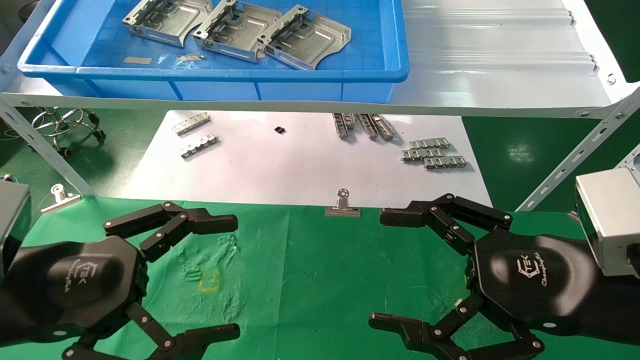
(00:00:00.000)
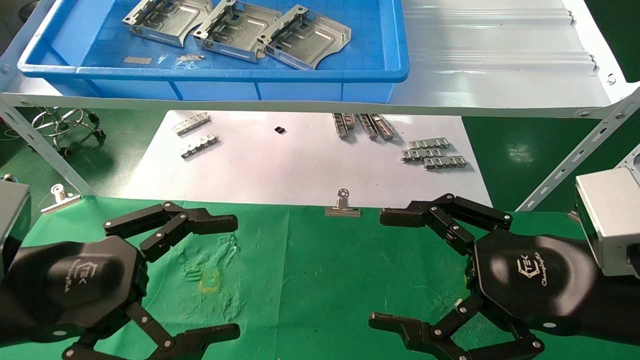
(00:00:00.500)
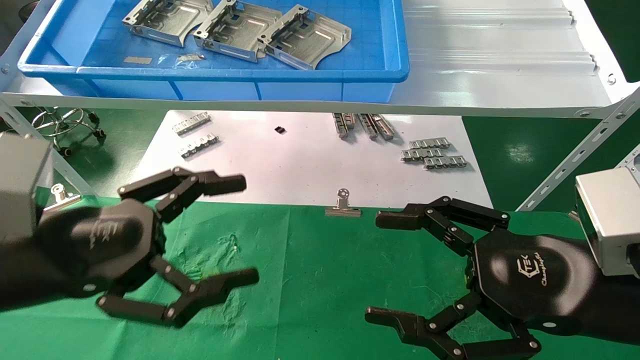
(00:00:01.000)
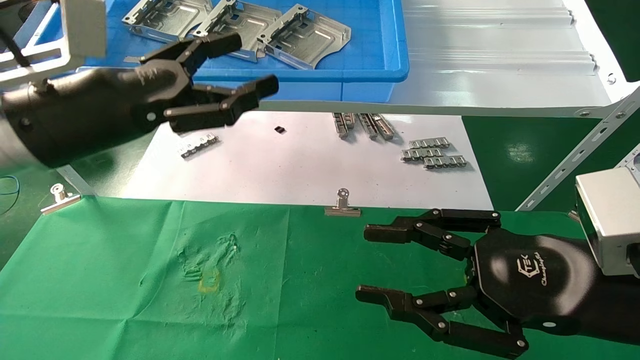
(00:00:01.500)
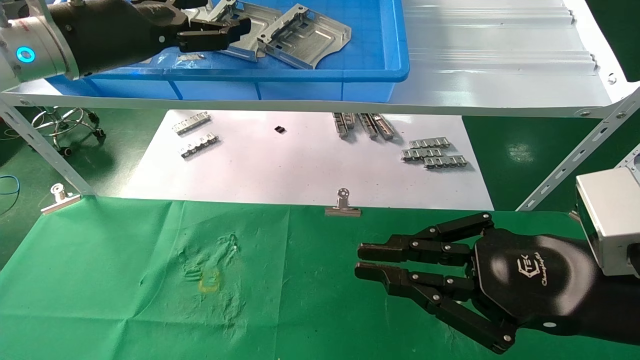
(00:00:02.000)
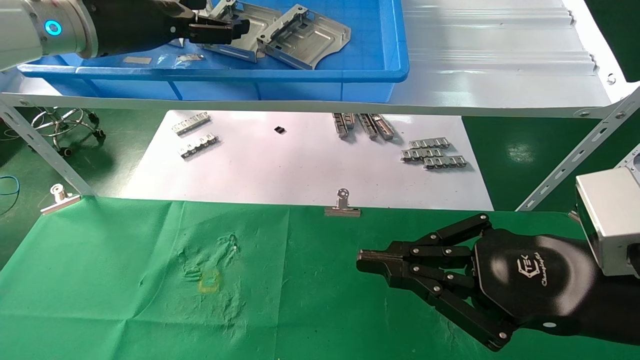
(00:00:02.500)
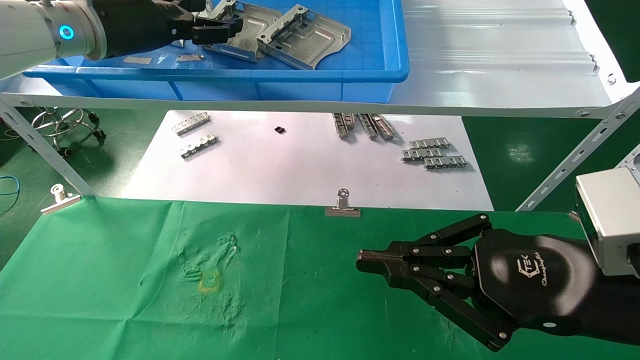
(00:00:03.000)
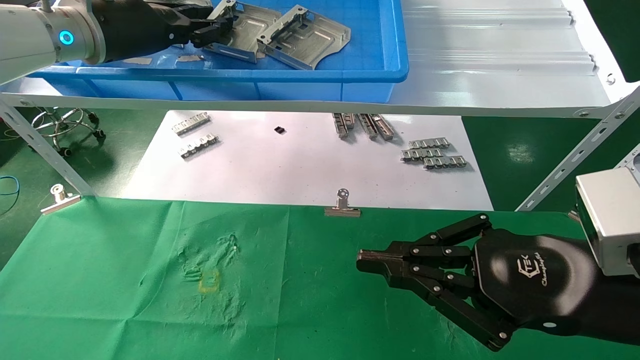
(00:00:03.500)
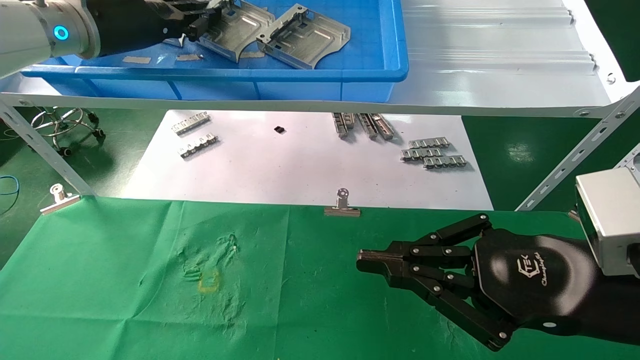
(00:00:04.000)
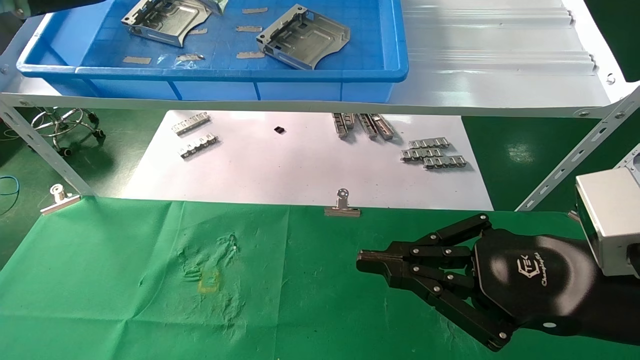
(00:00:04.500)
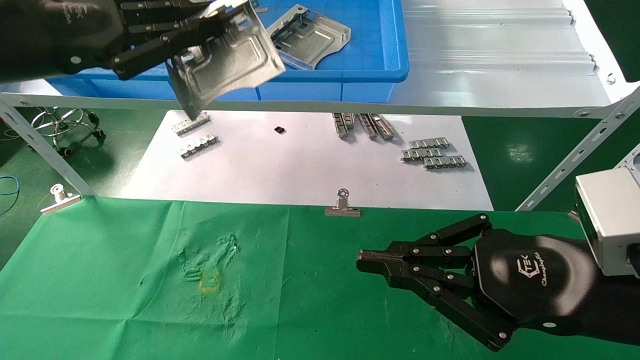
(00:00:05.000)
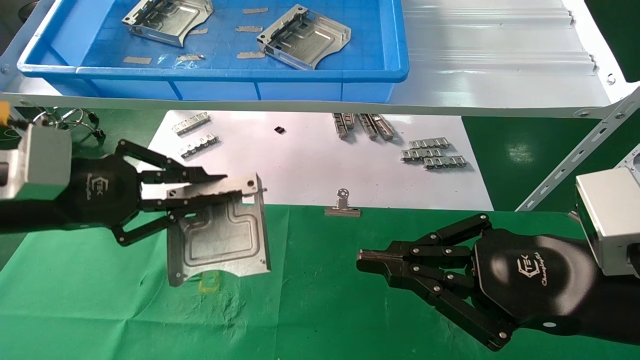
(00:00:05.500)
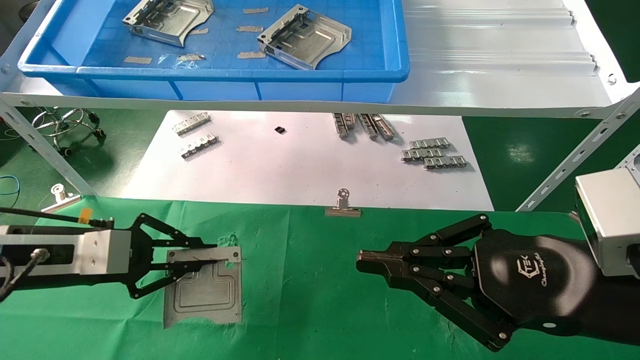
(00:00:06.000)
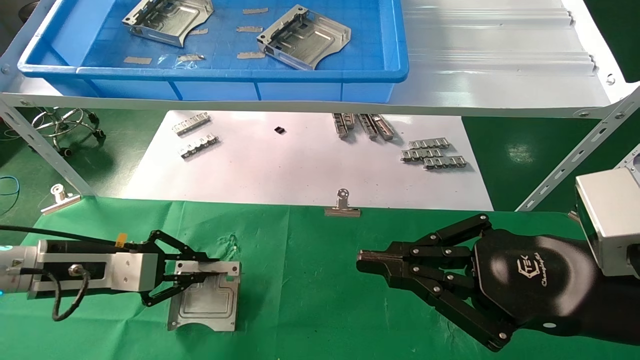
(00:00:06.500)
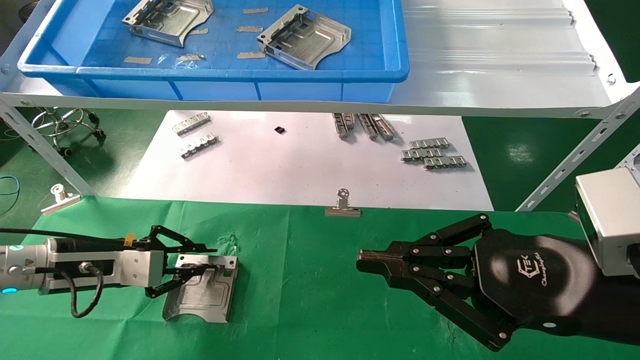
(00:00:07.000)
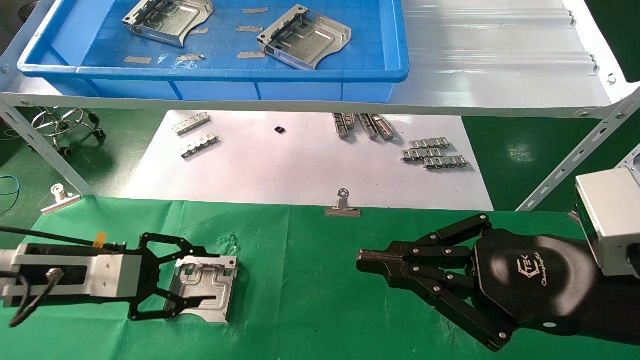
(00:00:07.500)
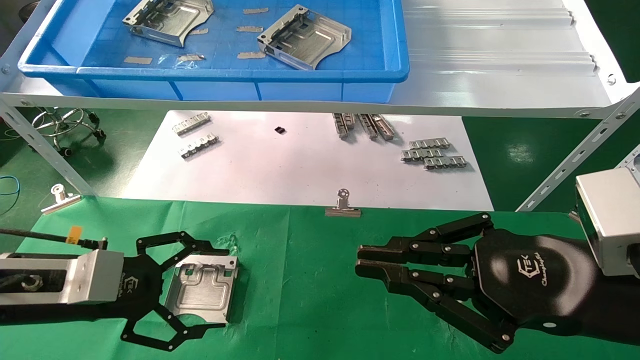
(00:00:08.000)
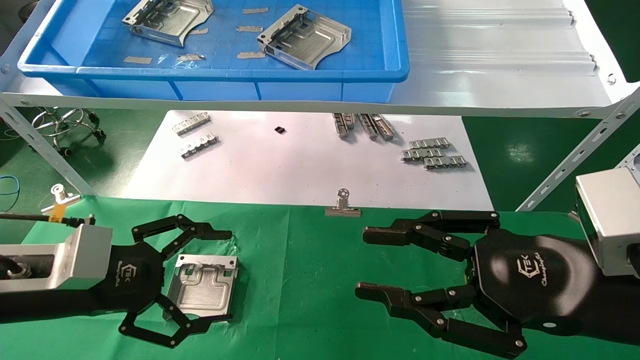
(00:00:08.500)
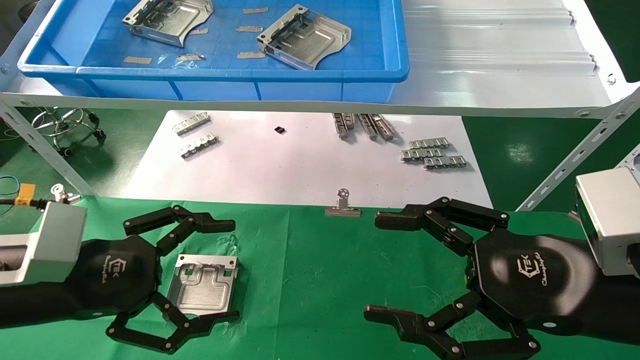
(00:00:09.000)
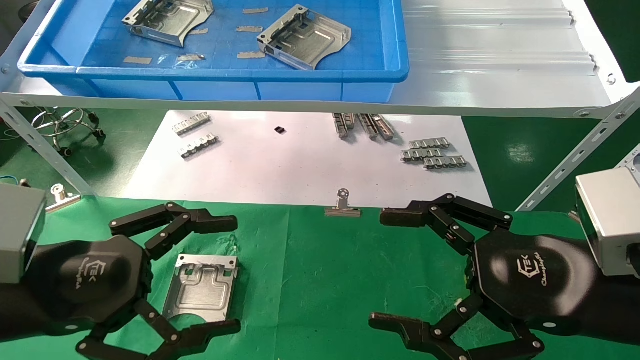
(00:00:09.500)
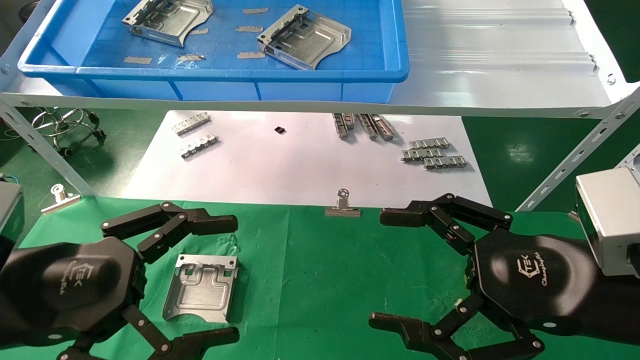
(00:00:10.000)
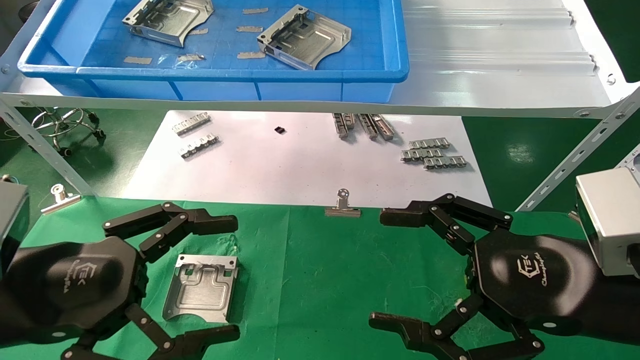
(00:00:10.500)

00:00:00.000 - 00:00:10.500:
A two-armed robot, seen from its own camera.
Task of the whole recording: use the mechanical arm to pick up the parts and place them on the table.
Step, 00:00:01.500 - 00:00:03.500: Pick up the hard drive bracket from the feeding area.
Step, 00:00:04.000 - 00:00:06.500: Place the hard drive bracket into the box.
00:00:00.000 - 00:00:02.000: The right gripper closes. Meanwhile the left gripper is displaced upward and forward by about 25 cm.
00:00:02.000 - 00:00:04.000: The left gripper moves roughly 5 cm, and closes.
00:00:04.000 - 00:00:06.500: The left gripper heads downward, covering some 30 cm.
00:00:06.500 - 00:00:08.500: The left gripper heads backward, covering about 10 cm, and opens up.
00:00:08.500 - 00:00:10.500: The right gripper opens up, while the left gripper moves backward, approximately 10 cm.
